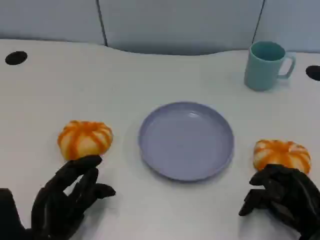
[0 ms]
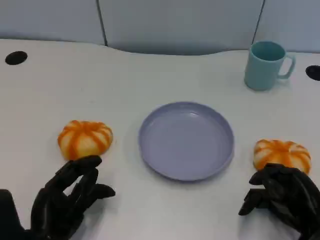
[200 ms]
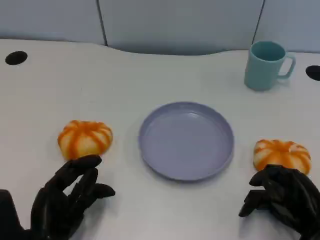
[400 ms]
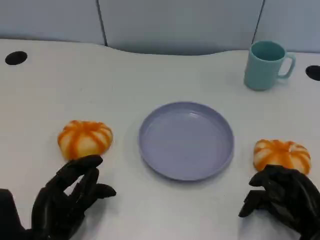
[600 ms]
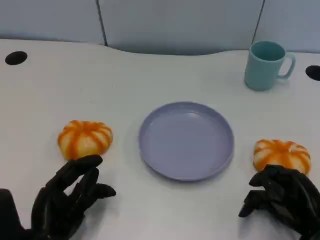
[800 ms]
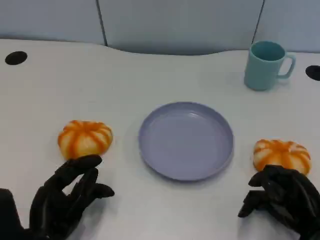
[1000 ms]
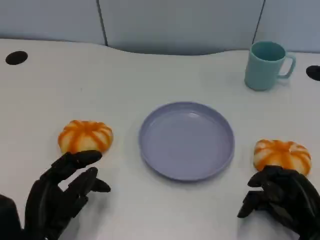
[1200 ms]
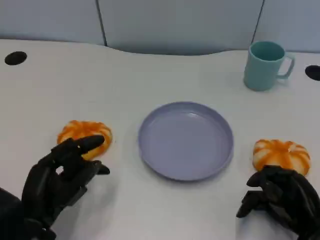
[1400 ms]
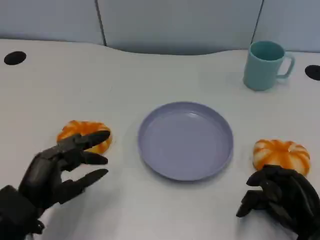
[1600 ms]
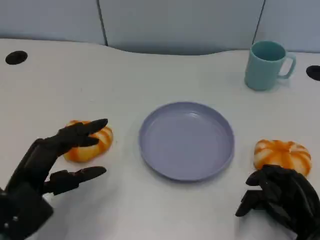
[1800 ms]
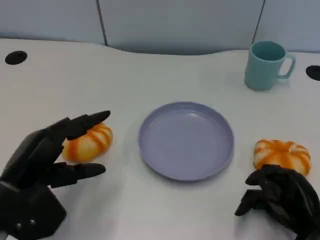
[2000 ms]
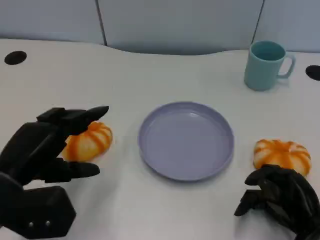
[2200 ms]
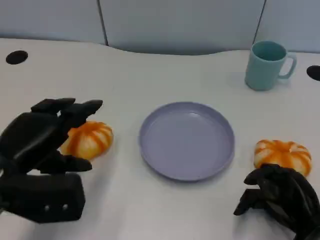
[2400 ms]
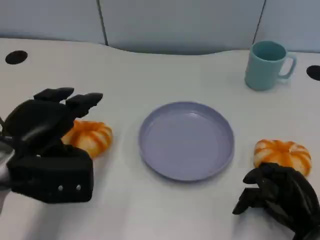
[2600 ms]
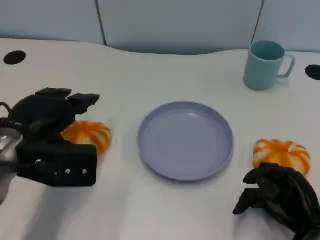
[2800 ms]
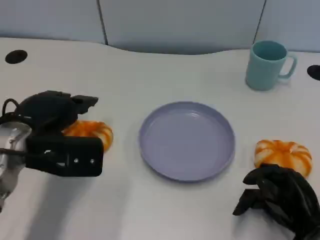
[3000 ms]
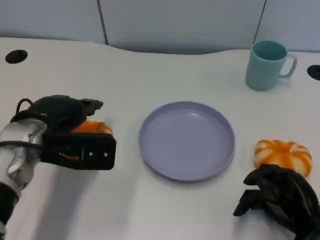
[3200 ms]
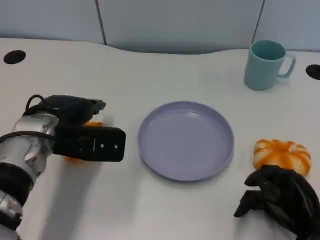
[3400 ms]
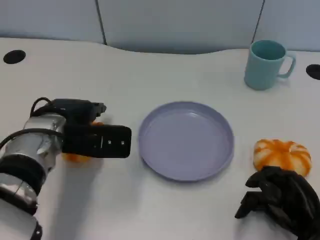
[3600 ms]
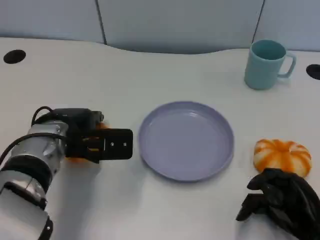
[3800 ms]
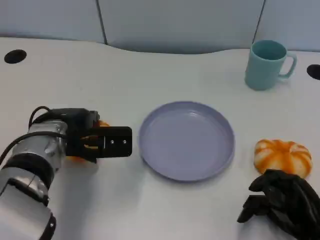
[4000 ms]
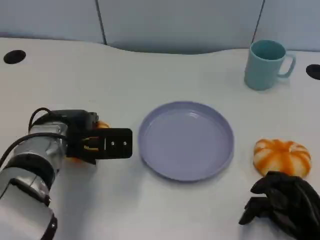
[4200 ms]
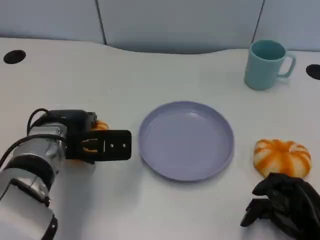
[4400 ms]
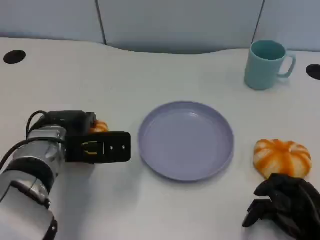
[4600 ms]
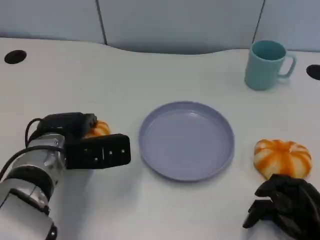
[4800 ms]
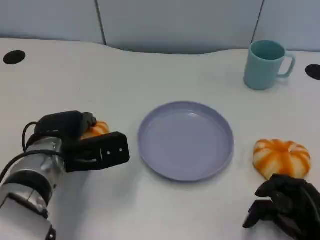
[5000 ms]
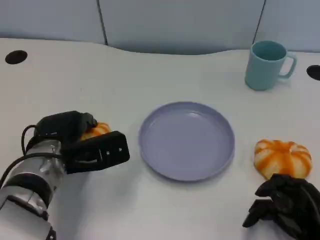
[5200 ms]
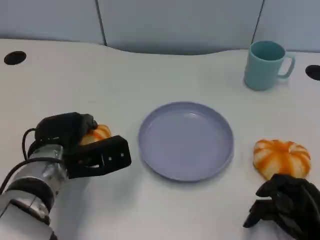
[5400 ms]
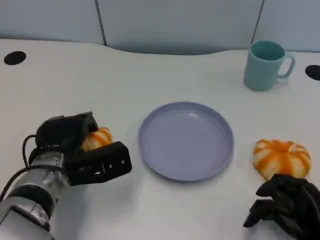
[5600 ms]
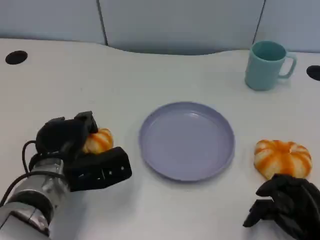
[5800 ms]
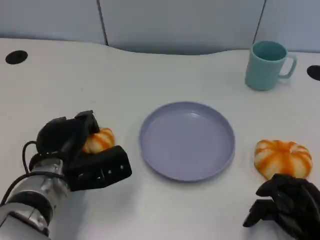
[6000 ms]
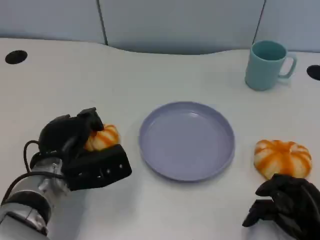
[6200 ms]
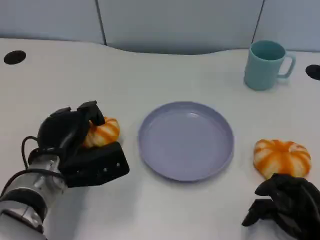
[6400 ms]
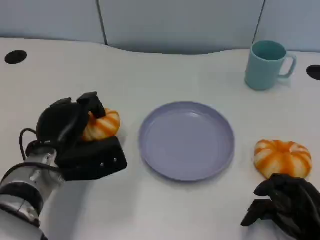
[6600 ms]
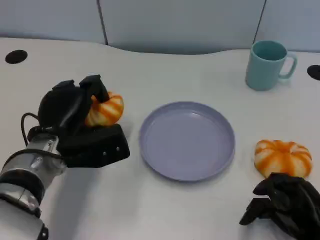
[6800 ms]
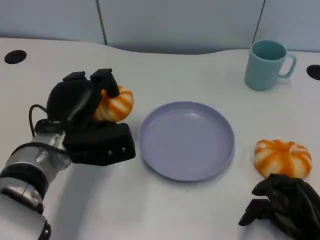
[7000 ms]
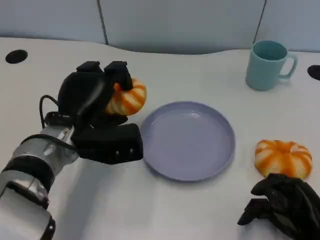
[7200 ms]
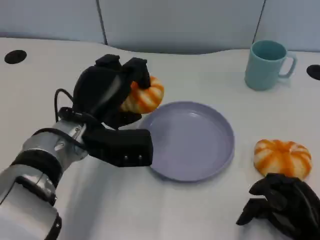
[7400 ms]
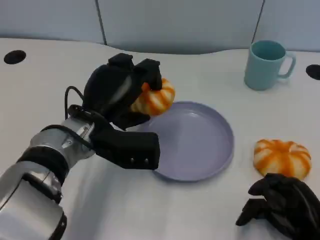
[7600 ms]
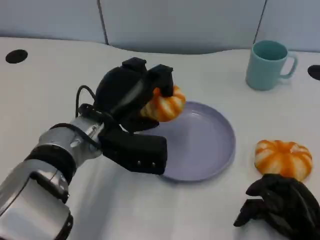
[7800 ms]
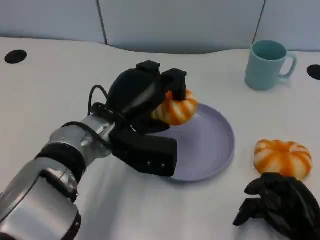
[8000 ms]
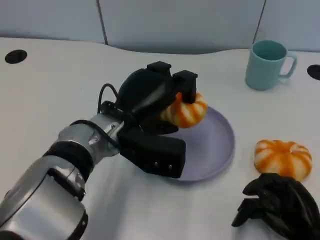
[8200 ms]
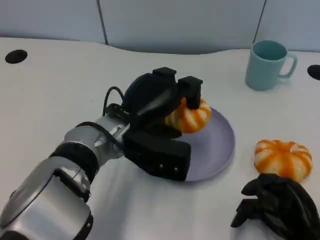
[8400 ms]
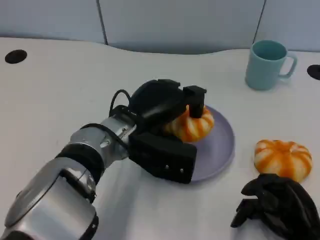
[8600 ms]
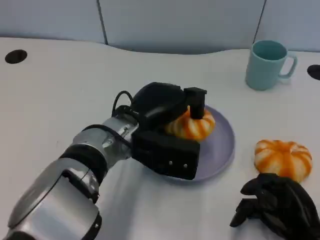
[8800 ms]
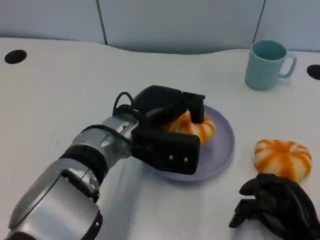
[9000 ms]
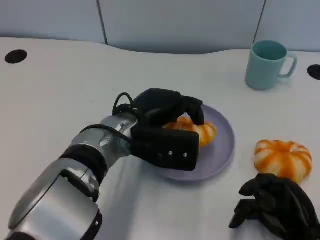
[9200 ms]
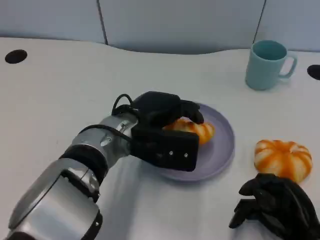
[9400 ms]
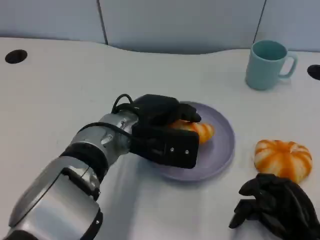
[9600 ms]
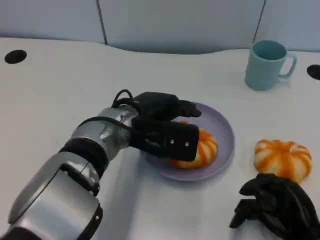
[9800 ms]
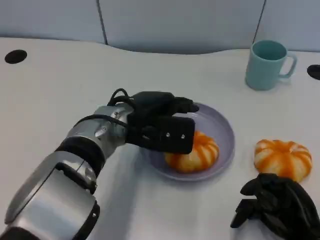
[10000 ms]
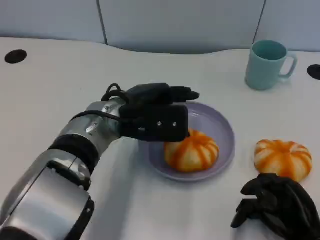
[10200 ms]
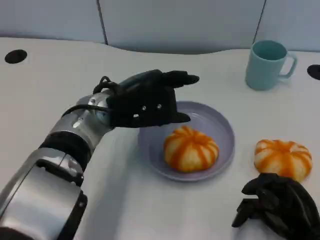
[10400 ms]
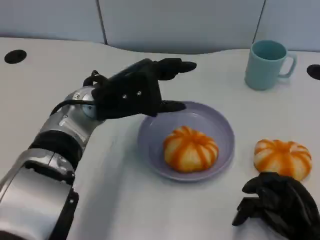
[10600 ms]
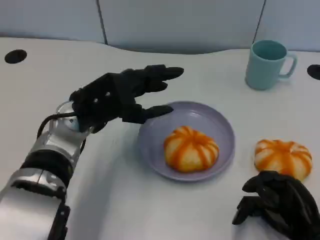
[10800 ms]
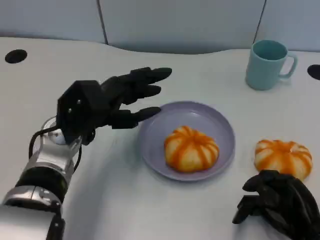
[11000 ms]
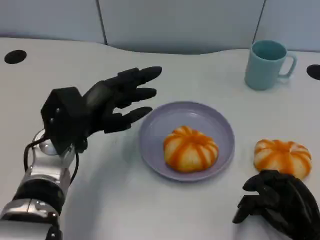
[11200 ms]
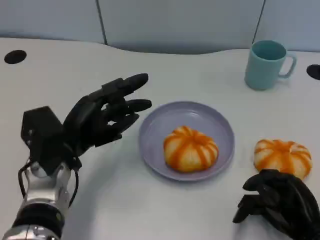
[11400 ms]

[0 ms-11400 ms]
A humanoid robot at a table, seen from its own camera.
Task of the whole recording: Grasp the bread from the table and place it into the plate.
1400 ms to 2800 ms: The left hand heads upward and forward, covering roughly 15 cm.
2800 ms to 4200 ms: The left hand goes about 5 cm to the right.
4200 ms to 5600 ms: The left hand shifts by approximately 5 cm.
5600 ms to 7200 ms: The left hand shifts approximately 5 cm upward.
7200 ms to 8600 ms: The left hand is displaced to the right by some 10 cm.
10000 ms to 11400 ms: The left hand goes some 10 cm to the left and downward.

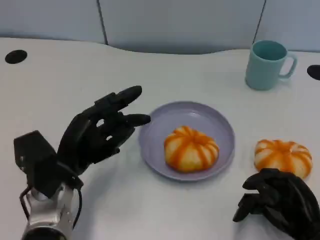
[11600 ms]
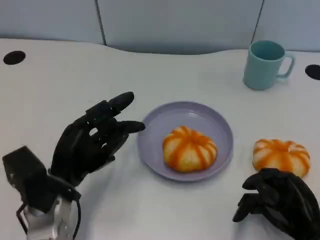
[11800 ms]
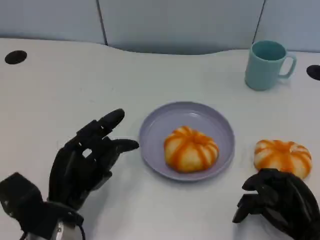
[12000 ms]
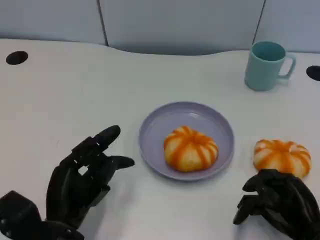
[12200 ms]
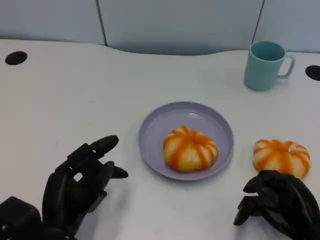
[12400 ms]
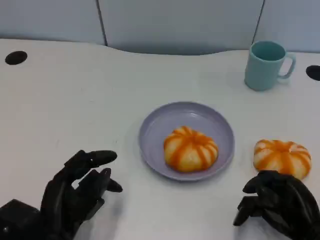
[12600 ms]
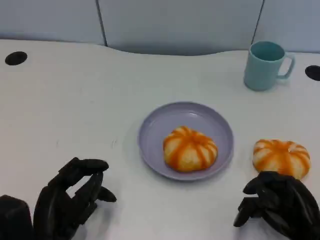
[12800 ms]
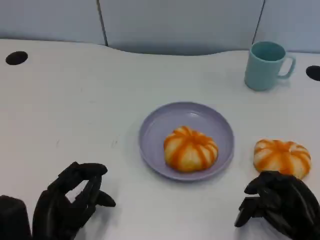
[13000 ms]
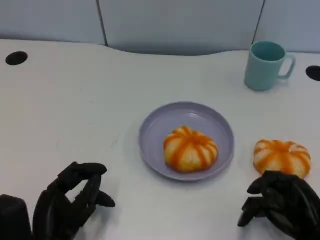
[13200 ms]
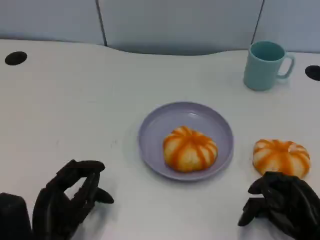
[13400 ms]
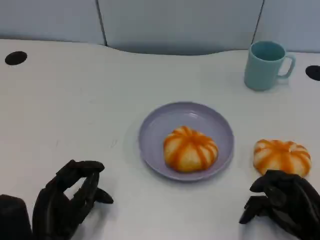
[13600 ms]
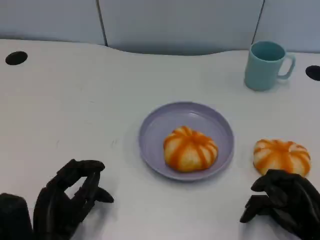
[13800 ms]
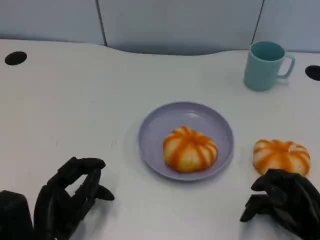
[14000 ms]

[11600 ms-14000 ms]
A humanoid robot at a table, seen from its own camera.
Task of the whole recording: Grasp the bread from the table and place it into the plate.
11600 ms to 12800 ms: The left hand heads backward, covering roughly 10 cm.
12800 ms to 14000 ms: There are only small adjustments of the hands.

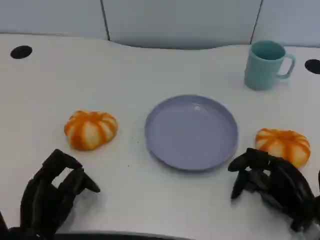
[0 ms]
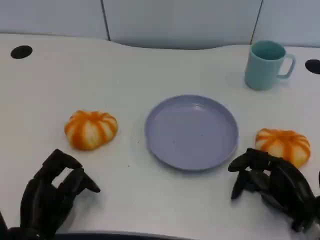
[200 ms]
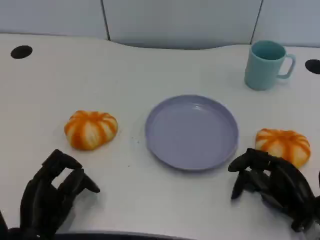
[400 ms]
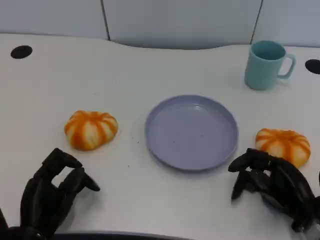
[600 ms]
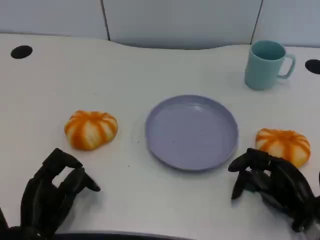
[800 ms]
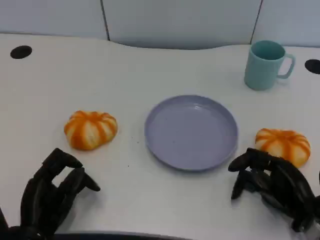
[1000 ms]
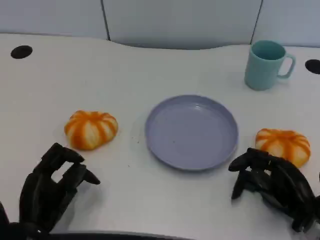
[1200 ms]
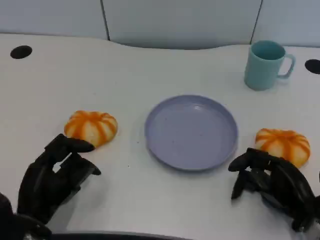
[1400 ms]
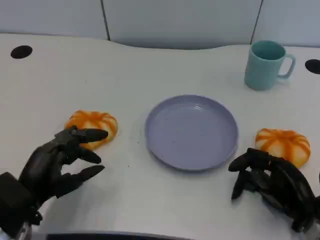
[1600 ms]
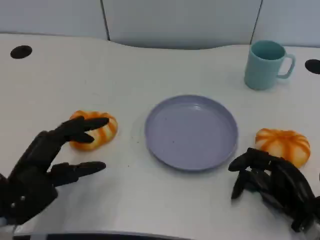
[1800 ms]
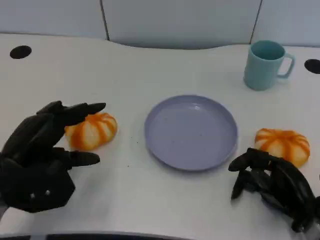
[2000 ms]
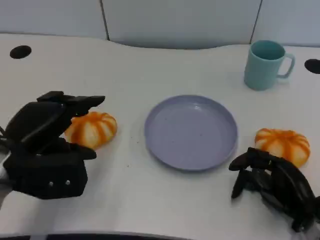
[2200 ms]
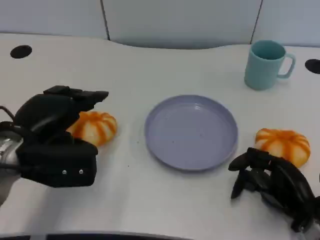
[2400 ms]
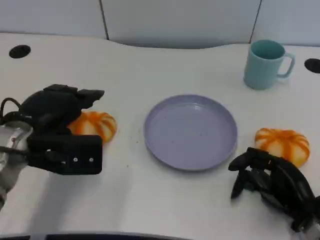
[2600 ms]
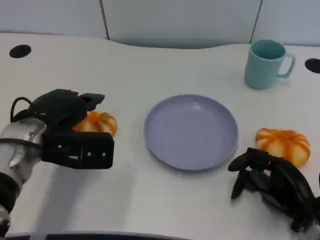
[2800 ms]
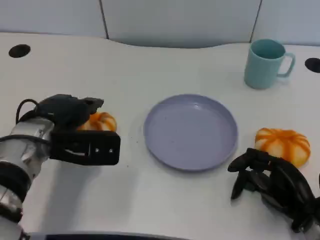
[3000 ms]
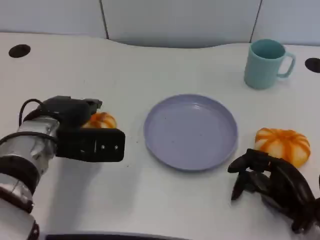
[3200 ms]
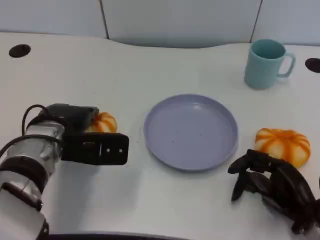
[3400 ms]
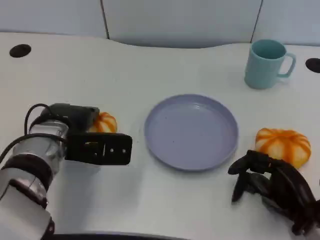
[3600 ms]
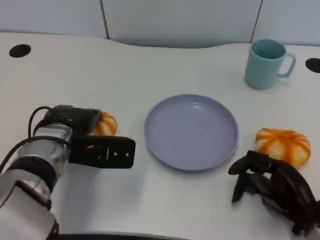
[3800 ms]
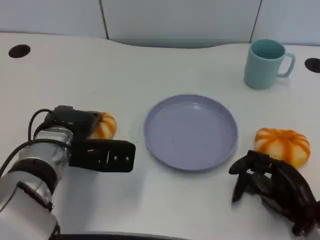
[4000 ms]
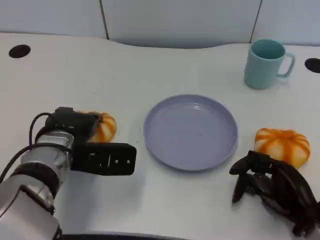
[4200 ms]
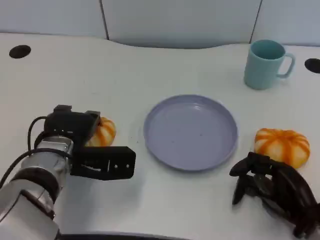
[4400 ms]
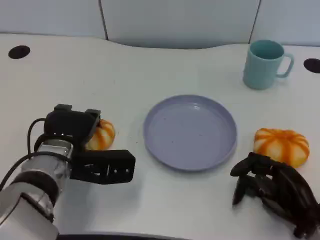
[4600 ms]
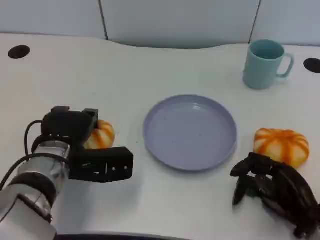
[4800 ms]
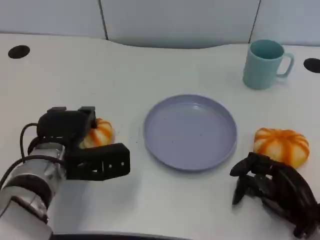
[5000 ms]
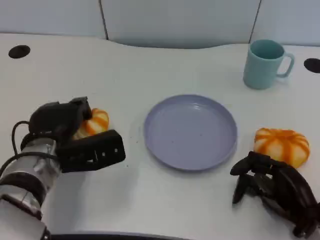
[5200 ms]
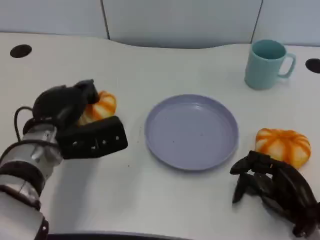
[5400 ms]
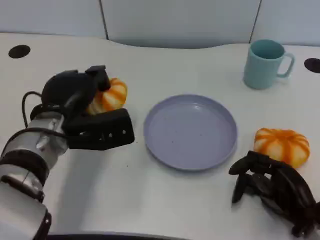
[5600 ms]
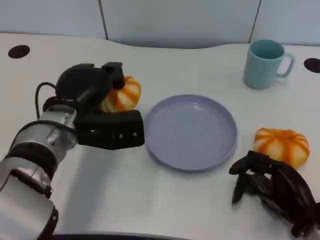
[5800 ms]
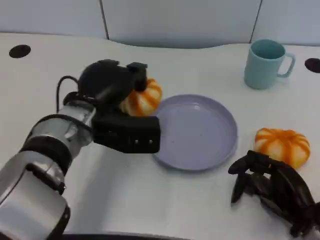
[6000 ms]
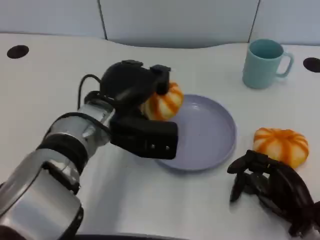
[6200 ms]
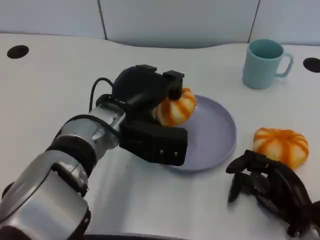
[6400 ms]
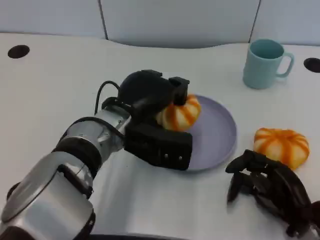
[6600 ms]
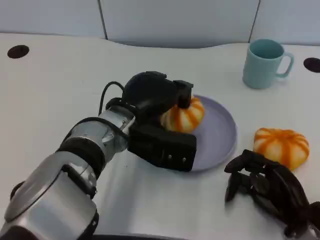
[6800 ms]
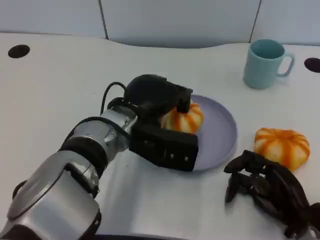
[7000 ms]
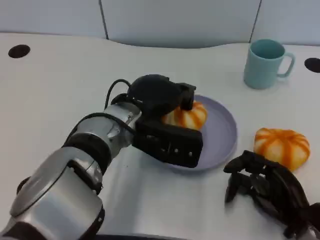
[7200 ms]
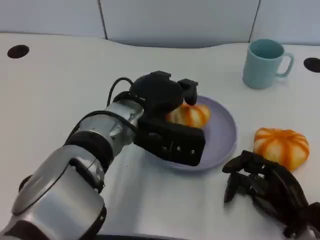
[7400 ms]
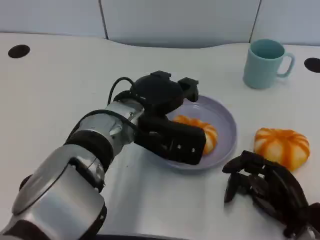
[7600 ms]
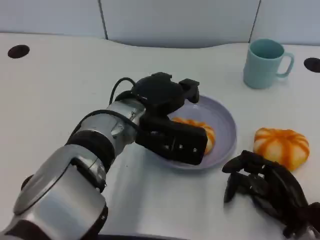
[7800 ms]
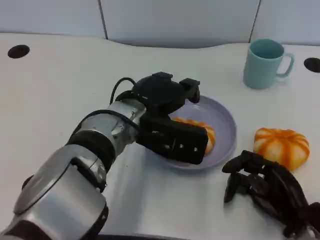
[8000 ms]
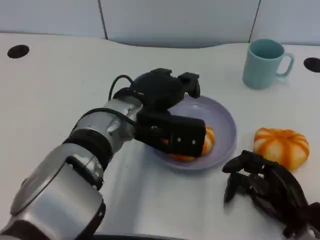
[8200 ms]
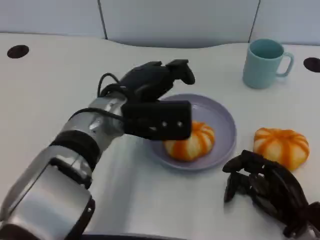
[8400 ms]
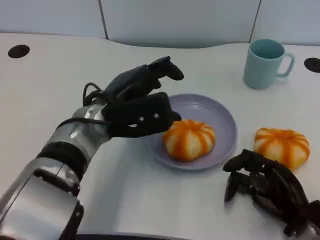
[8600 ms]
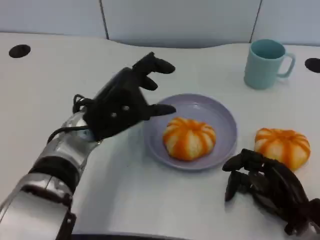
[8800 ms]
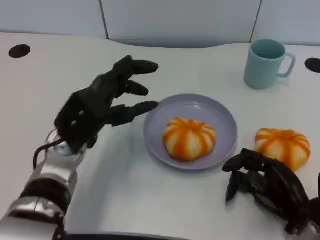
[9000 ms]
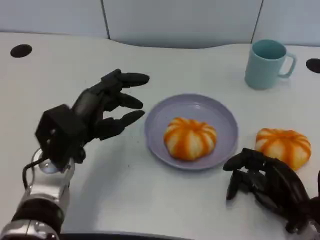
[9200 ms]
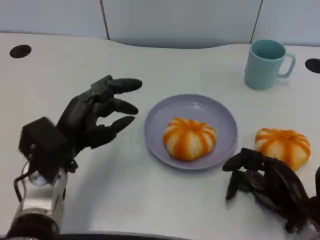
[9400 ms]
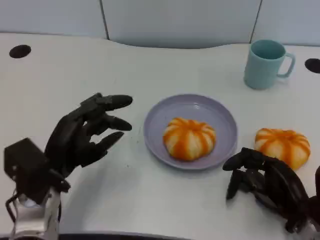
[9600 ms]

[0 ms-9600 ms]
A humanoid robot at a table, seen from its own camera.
Task of the whole recording: Grasp the bread from the table and place it into the plate.
0 ms to 1600 ms: The left hand goes about 5 cm upward.
1600 ms to 3200 ms: The left hand shifts approximately 10 cm forward and to the right.
3200 ms to 4800 ms: The hands move only a little.
4800 ms to 6400 ms: The left hand travels to the right and upward by approximately 10 cm.
8000 ms to 9600 ms: The left hand shifts some 15 cm to the left, downward and backward.
